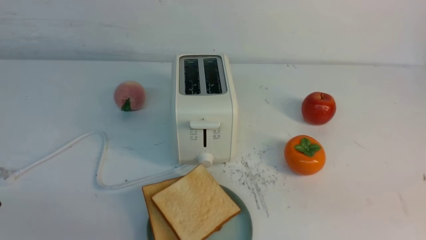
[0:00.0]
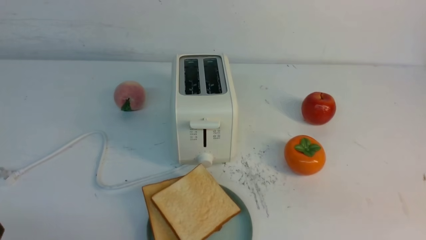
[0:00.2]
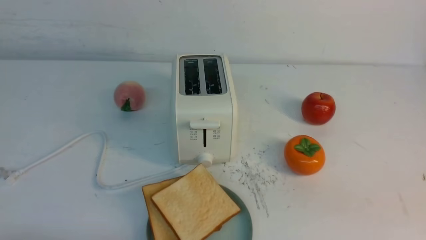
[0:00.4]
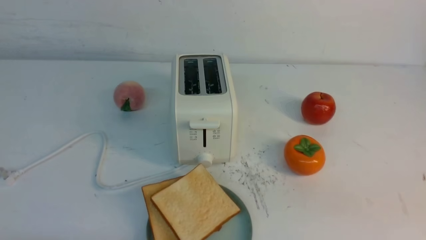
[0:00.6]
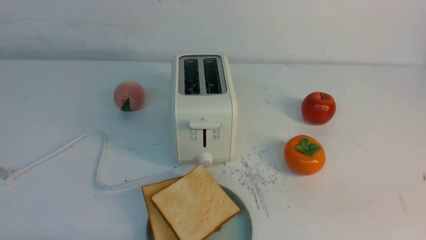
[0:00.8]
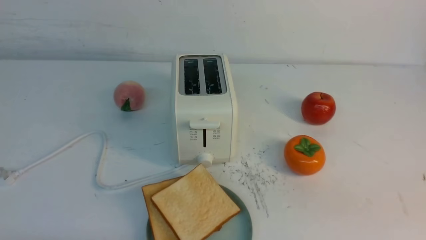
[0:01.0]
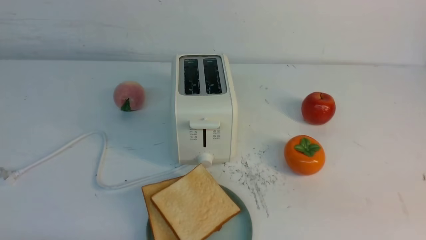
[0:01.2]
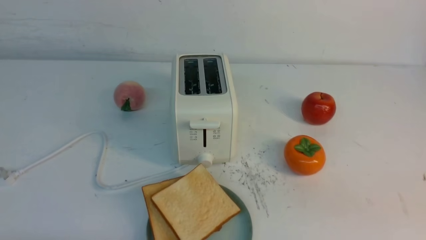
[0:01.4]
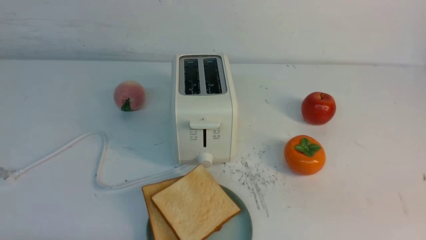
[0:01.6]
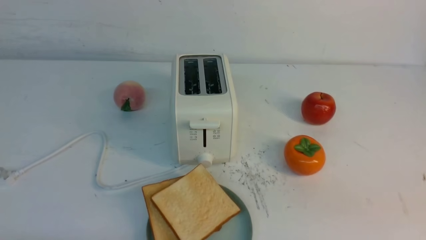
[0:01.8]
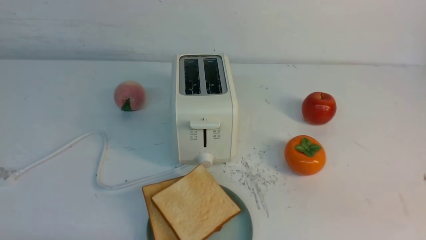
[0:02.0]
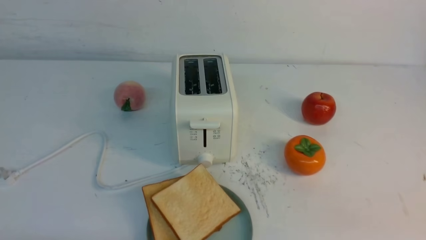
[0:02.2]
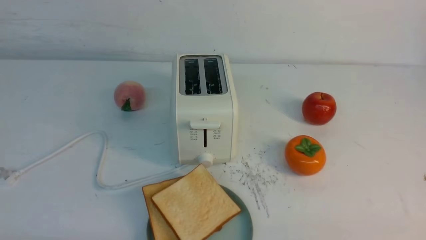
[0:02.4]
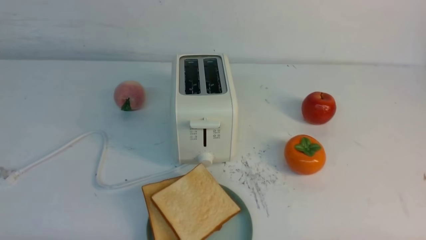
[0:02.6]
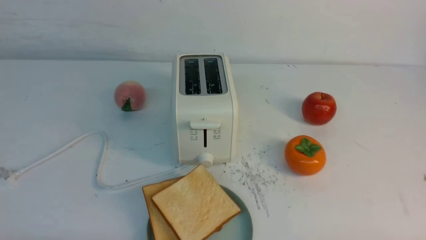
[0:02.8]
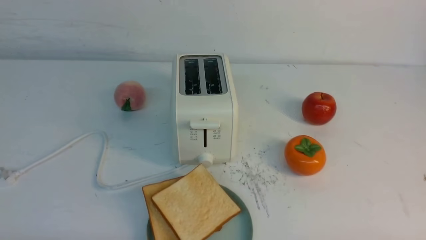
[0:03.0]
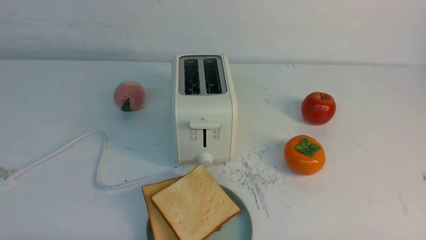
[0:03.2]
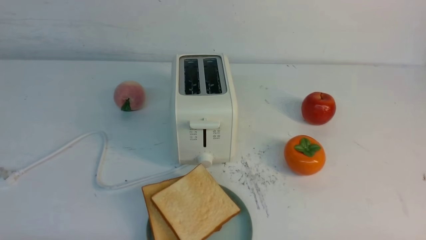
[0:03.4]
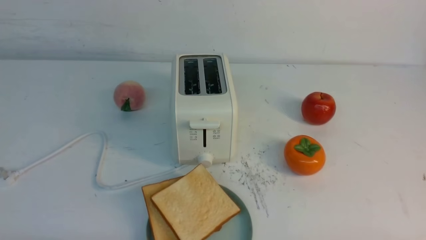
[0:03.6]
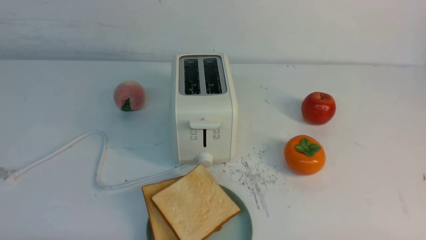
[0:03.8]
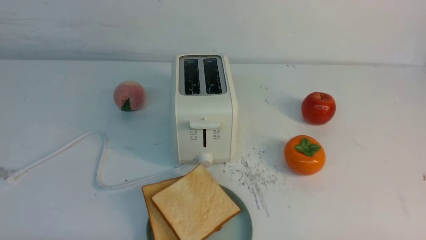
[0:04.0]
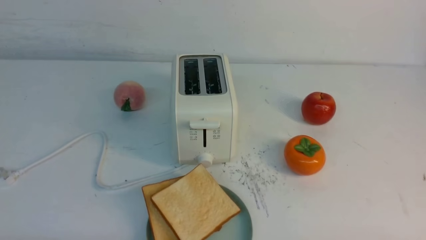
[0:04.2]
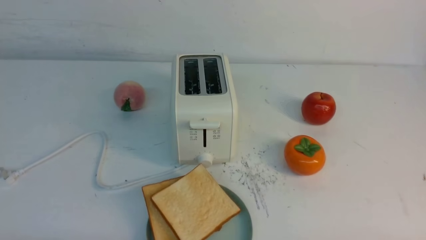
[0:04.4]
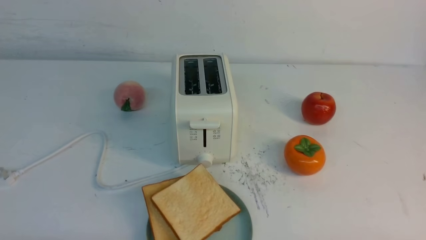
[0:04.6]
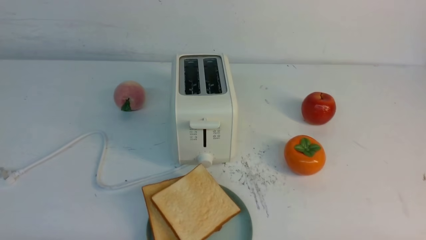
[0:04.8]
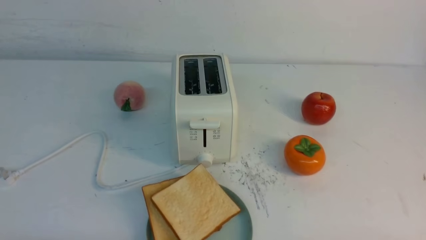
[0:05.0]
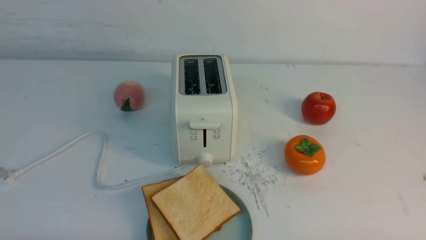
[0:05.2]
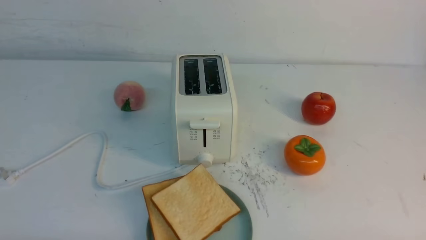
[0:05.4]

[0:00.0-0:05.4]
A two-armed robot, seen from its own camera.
Task of the whole recording: take toasted bread from bread machine on white table place on plate.
0:04.0 to 0:05.4: Neither gripper changes place.

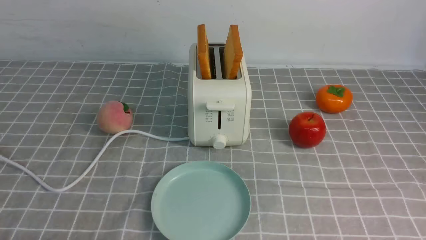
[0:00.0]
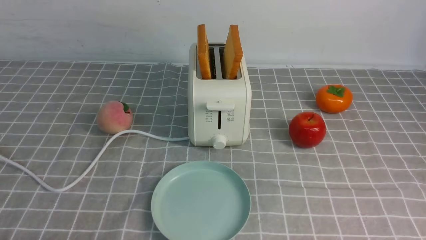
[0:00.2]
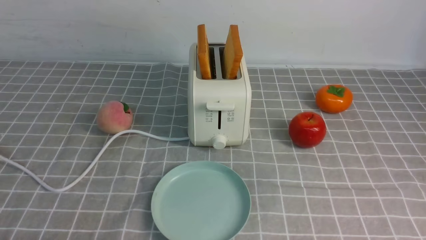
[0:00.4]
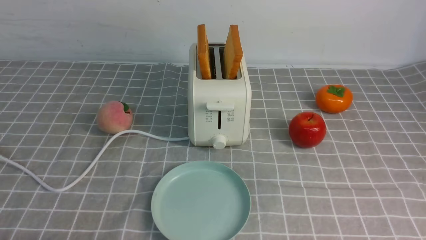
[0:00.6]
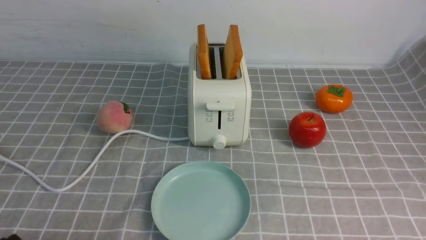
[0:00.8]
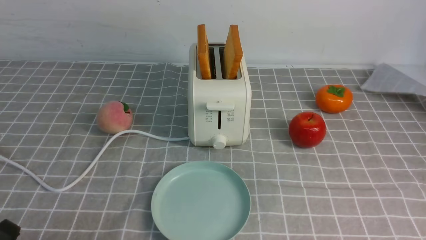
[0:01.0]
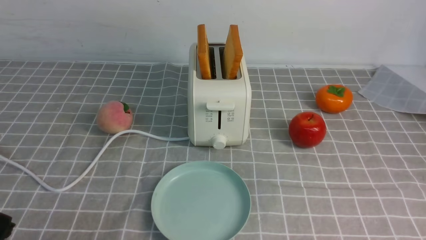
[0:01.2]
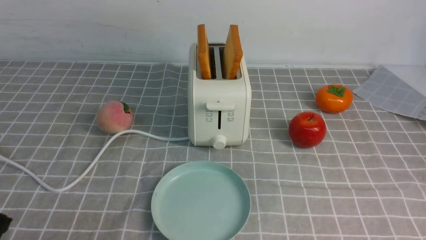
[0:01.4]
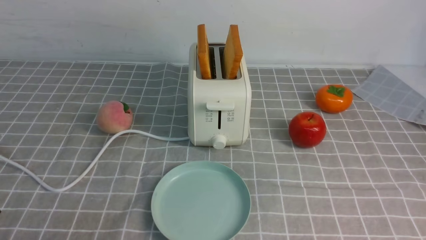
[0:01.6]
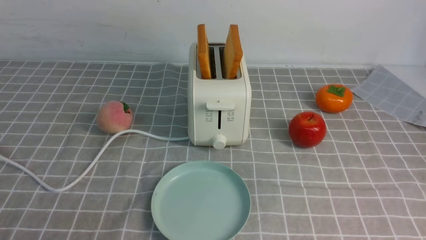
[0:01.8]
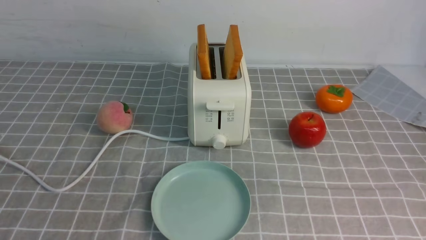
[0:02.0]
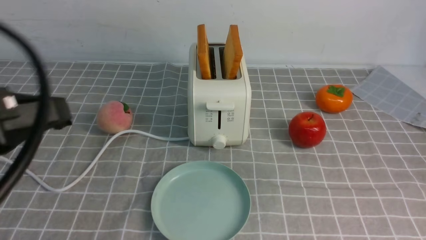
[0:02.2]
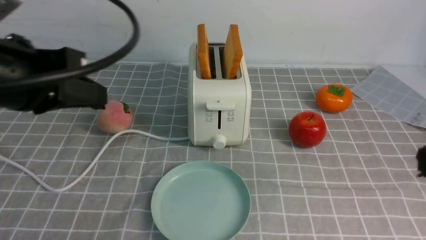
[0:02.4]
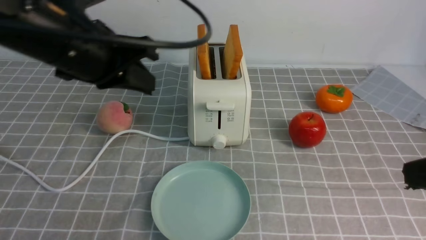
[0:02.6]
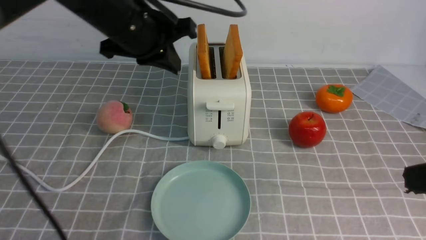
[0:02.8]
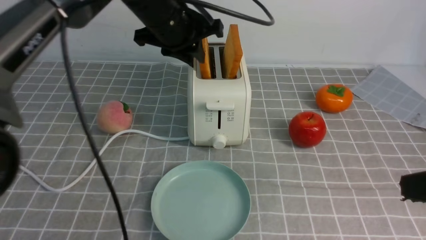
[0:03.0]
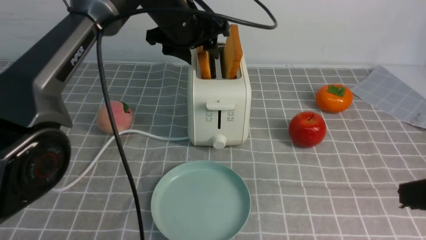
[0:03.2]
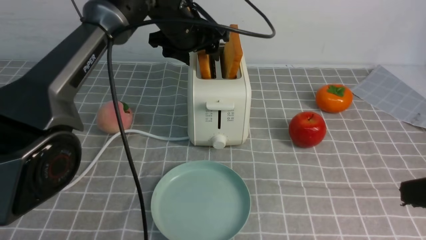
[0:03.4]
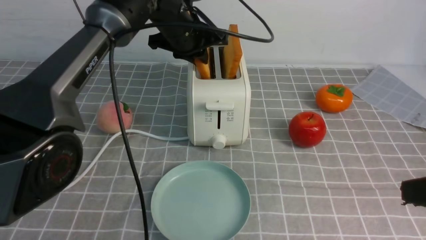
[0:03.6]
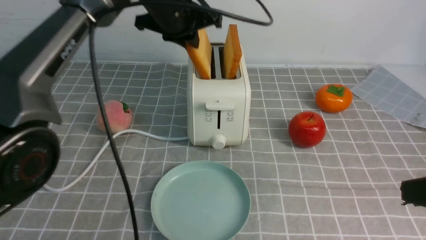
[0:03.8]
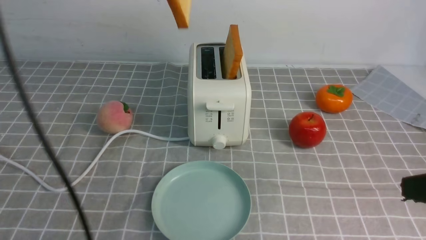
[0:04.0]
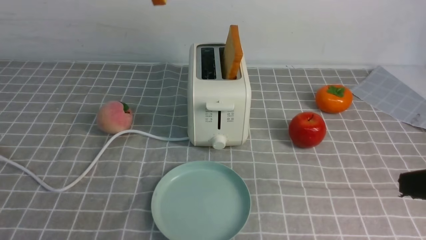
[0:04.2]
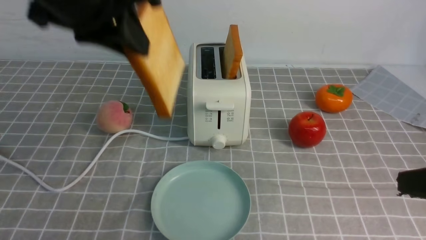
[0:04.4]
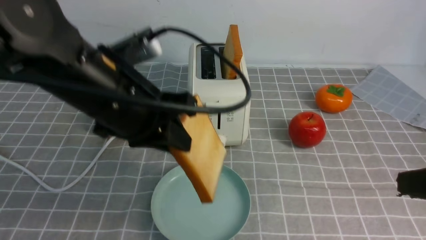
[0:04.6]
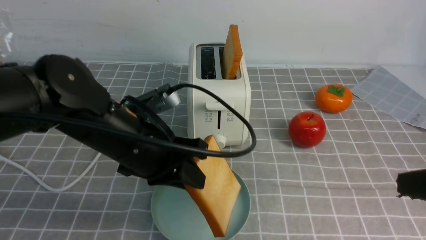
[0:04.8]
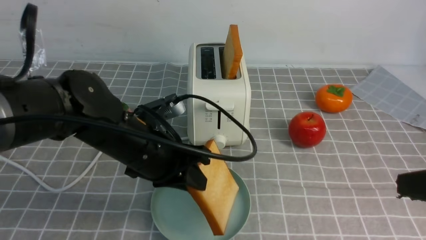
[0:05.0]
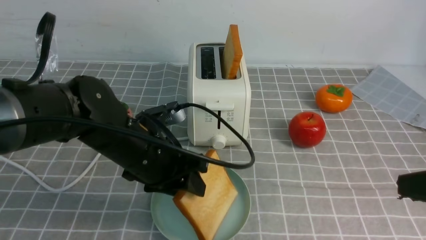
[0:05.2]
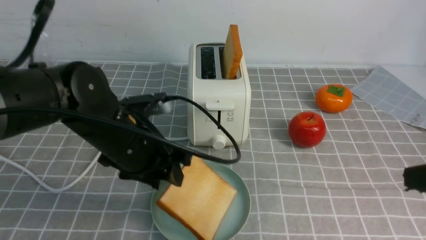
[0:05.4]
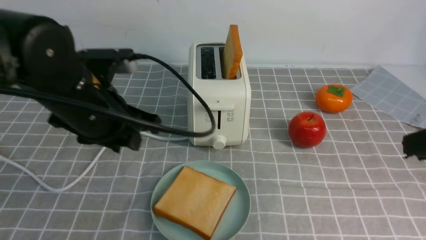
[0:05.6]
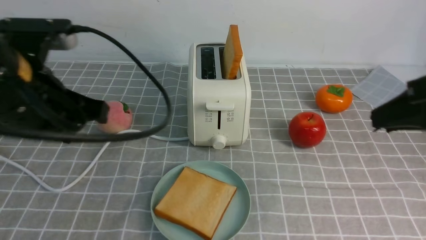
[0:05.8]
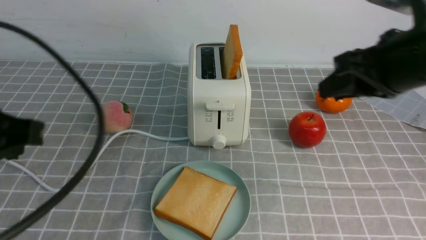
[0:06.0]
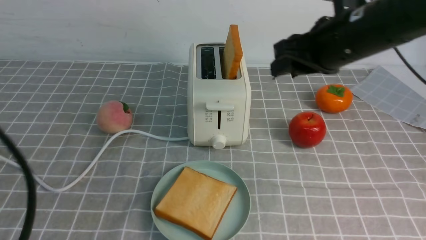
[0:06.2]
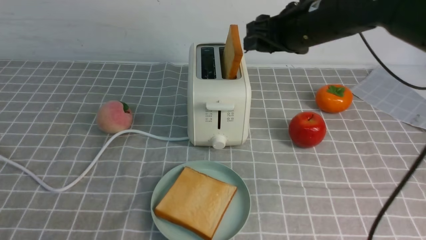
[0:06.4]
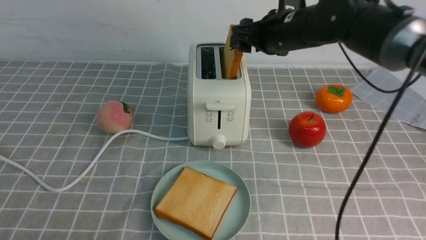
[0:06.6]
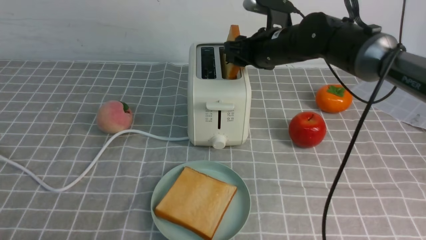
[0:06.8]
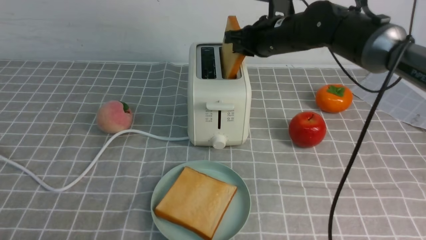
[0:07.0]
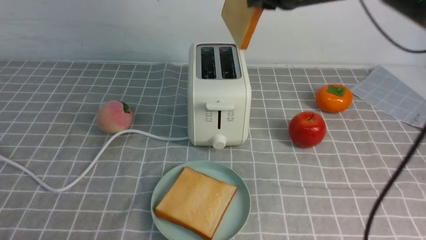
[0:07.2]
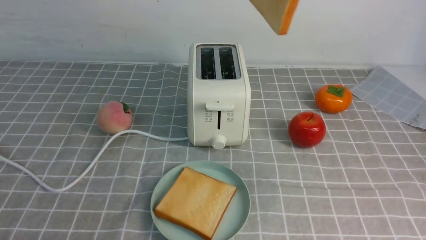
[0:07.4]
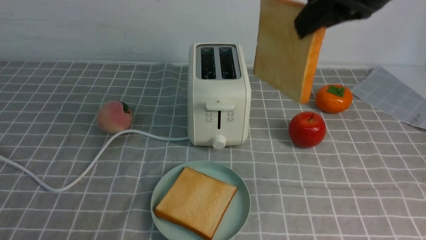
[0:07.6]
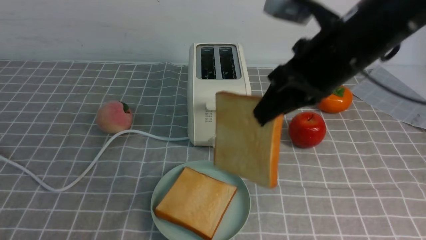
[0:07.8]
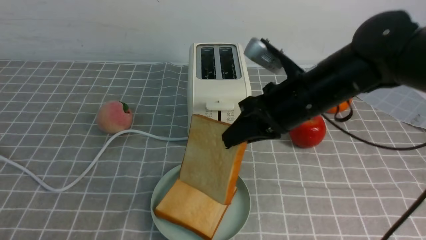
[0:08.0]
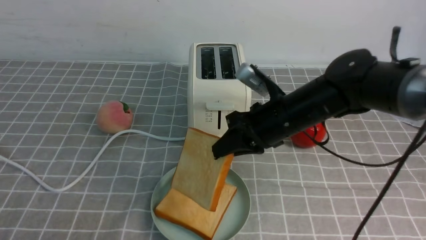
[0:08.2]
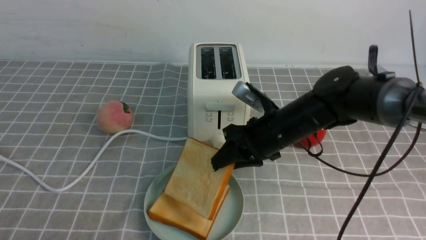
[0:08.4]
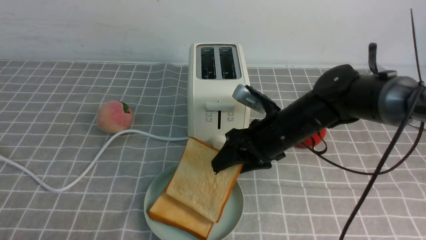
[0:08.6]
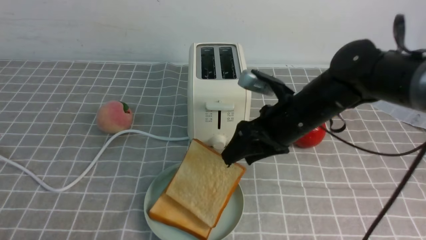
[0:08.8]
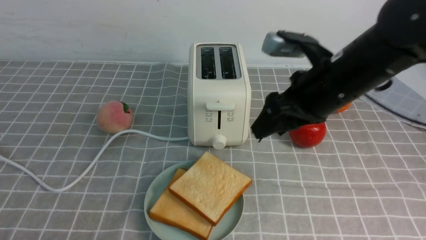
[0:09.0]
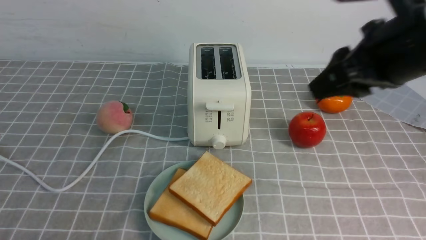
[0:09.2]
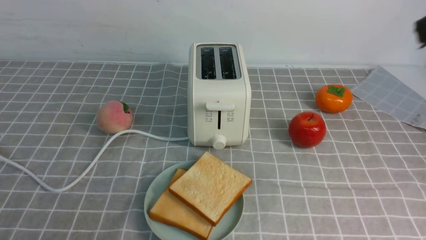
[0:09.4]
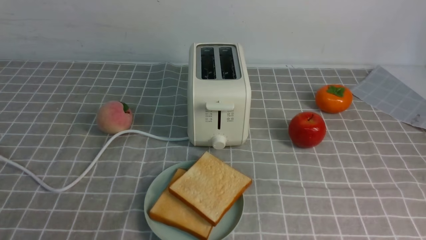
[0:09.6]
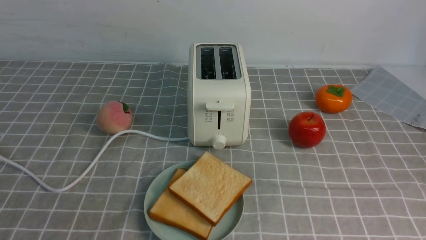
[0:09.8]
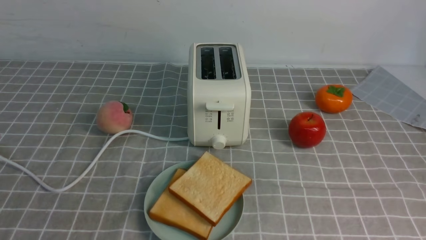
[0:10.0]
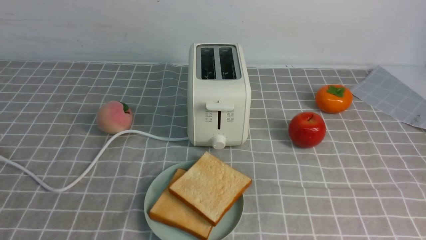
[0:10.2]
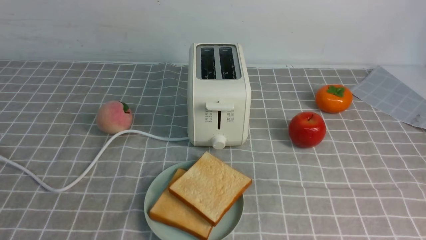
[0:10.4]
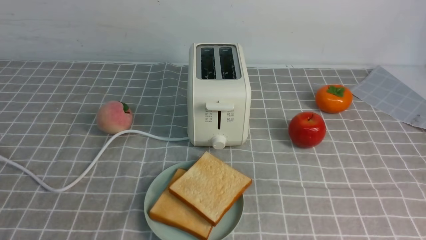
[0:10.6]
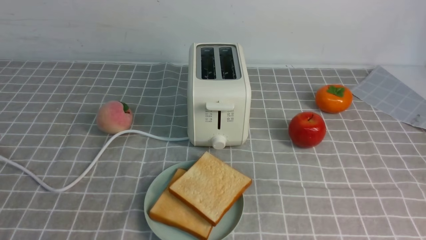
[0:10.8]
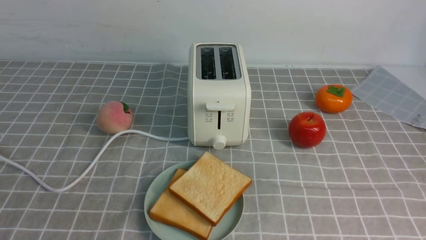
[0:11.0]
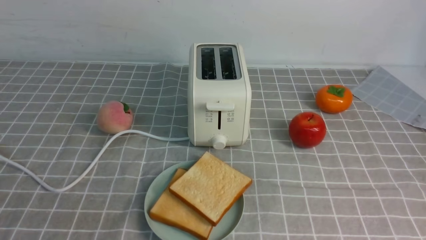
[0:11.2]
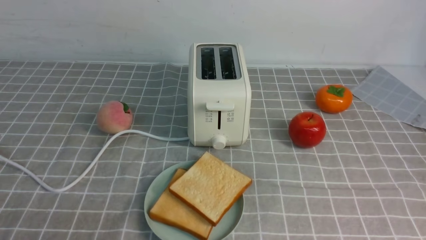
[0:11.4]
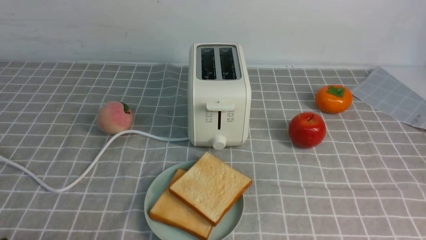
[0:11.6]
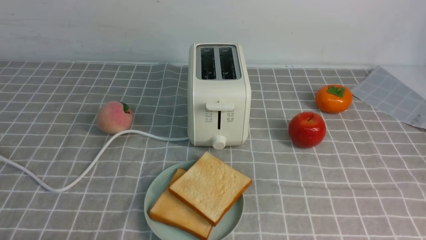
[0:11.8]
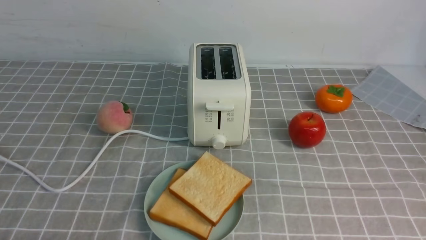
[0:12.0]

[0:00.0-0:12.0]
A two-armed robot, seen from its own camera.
Task of the whole recording: take toasted bread from bread machine on grey coffee table place on plate.
Step, 0:00.0 to 0:03.8: use the left arm to take out a slice of bread.
Step, 0:04.0 to 0:05.4: use the left arm to put a slice of bread into the empty plate.
Step, 0:05.8 to 0:07.0: use the right arm to take out a slice of bread.
Step, 0:07.2 to 0:09.0: use the right arm to put a slice of bread into the plate.
0:01.6 to 0:03.0: The left gripper moves forward and to the right, about 40 cm, and opens its fingers, while the right gripper travels upward and forward by roughly 15 cm.
0:03.0 to 0:04.4: The left gripper heads backward and upward, covering approximately 15 cm, and closes its fingers.
0:04.4 to 0:06.0: The left gripper moves backward and to the left, some 15 cm, travels downward and back again, some 20 cm each way, and opens and closes again, while the right gripper moves forward and to the left, about 15 cm.
0:06.0 to 0:07.6: The right gripper travels forward and back again, approximately 20 cm each way, and closes up, while the left gripper heads backward and downward, covering roughly 15 cm.
0:07.6 to 0:09.0: The right gripper shifts some 10 cm downward, and opens.
0:09.0 to 0:10.4: The right gripper travels backward and to the right by roughly 35 cm, and closes up.
